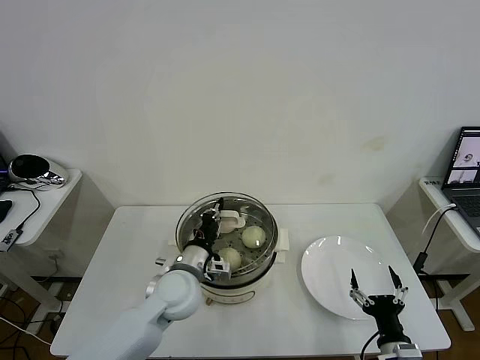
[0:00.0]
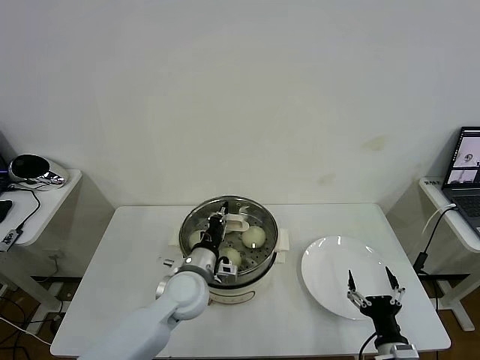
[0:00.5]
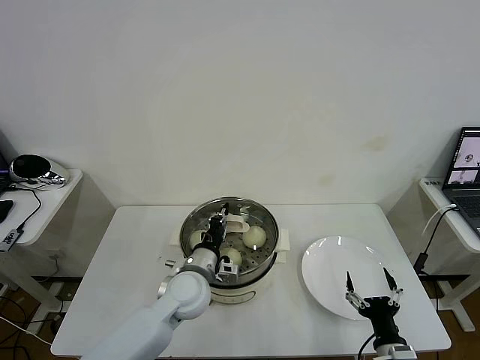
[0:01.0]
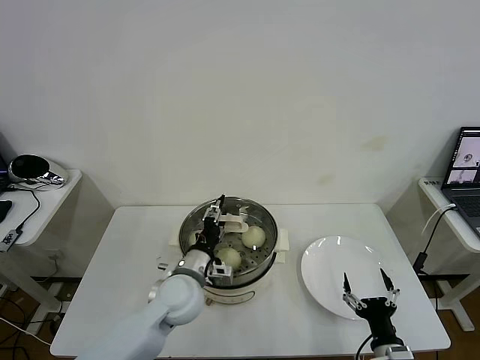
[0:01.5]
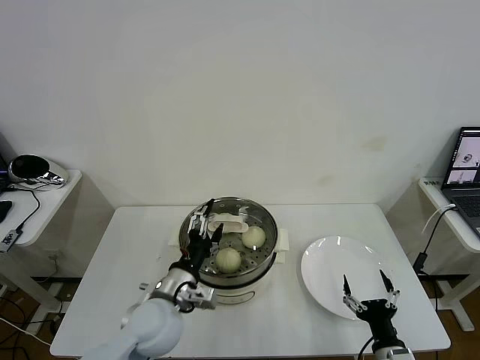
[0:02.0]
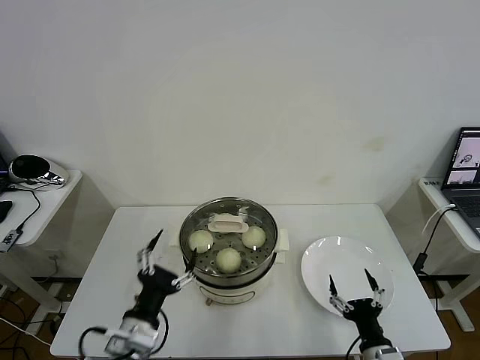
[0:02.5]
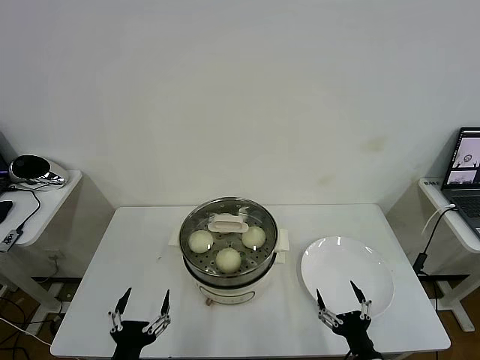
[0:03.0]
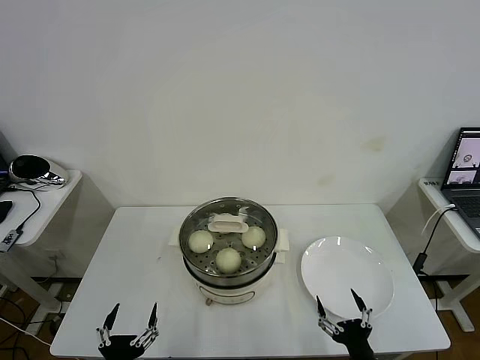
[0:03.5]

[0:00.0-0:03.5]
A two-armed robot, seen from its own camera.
Task of the whole recording: take steamed baozi put them in steamer then cover it.
0:00.0 to 0:02.0: The left gripper heads backward, covering approximately 5 cm, and opens up.
0:02.0 to 0:03.5: The left gripper shifts roughly 25 cm backward and to the left; the right gripper moves about 5 cm.

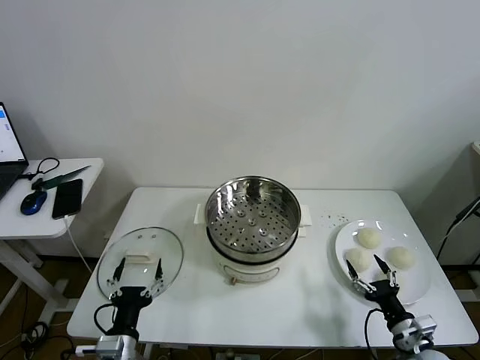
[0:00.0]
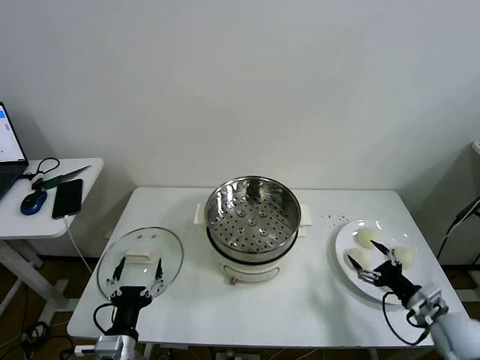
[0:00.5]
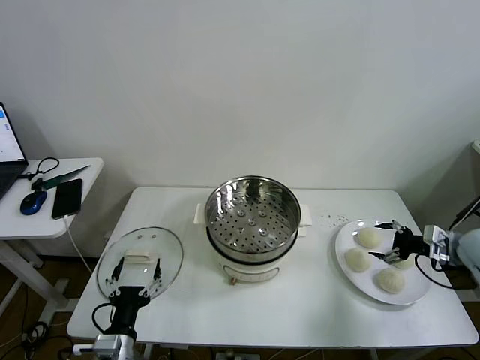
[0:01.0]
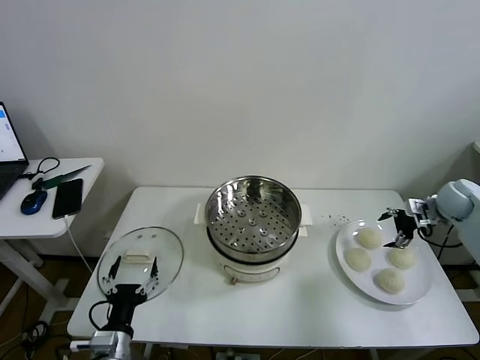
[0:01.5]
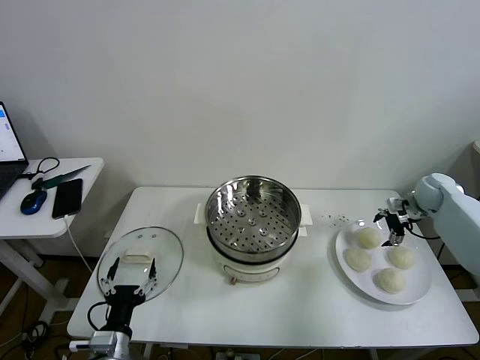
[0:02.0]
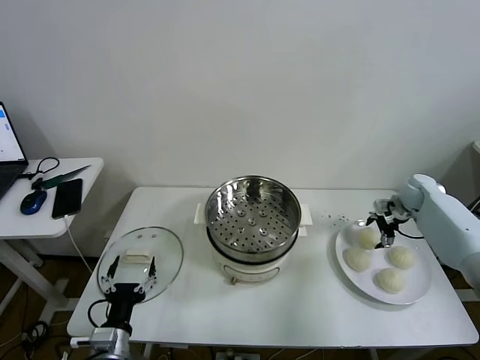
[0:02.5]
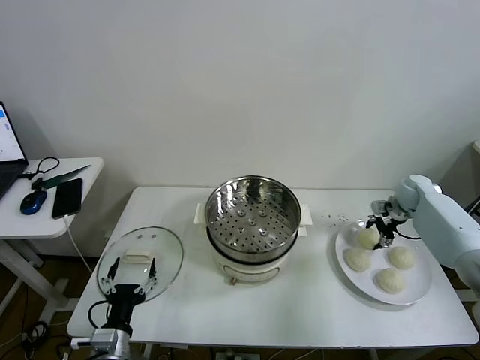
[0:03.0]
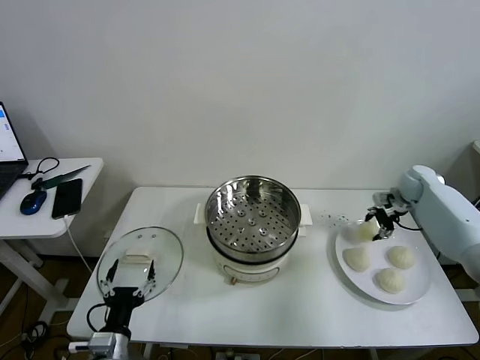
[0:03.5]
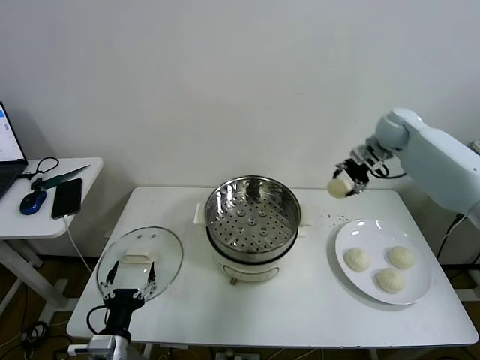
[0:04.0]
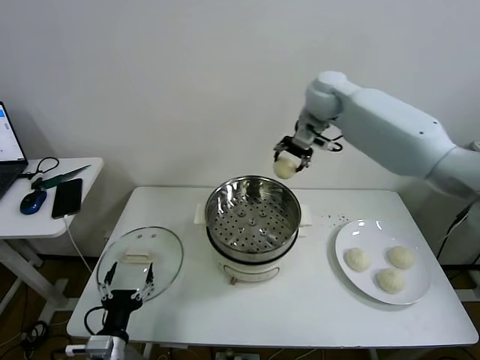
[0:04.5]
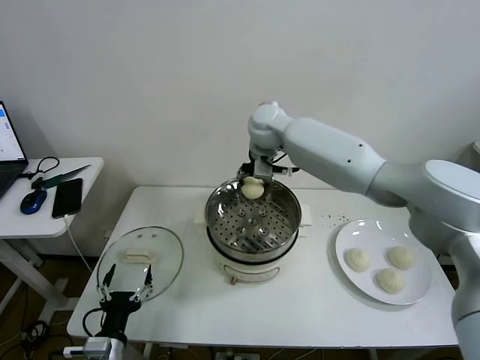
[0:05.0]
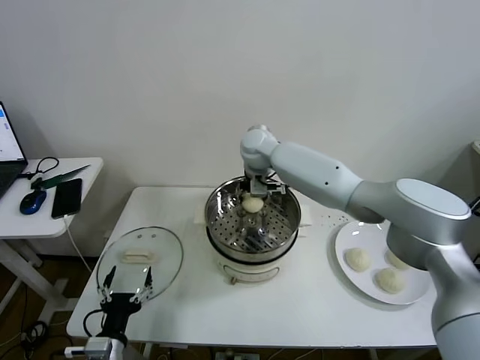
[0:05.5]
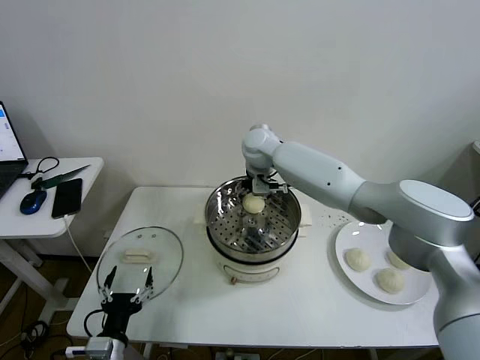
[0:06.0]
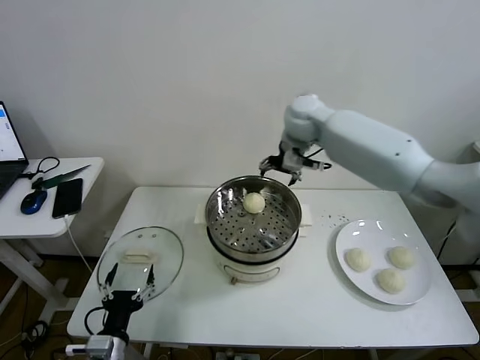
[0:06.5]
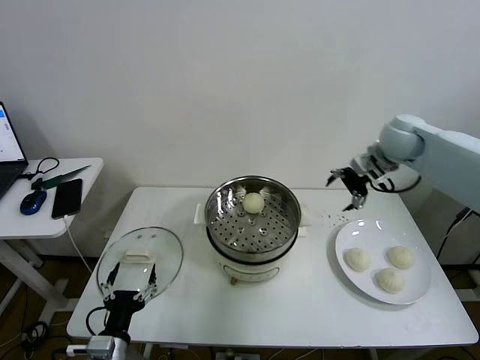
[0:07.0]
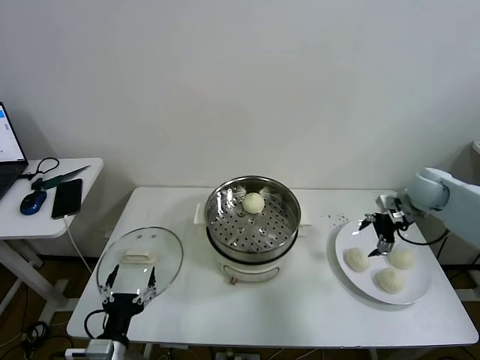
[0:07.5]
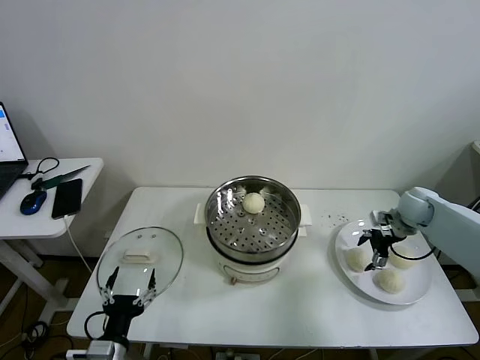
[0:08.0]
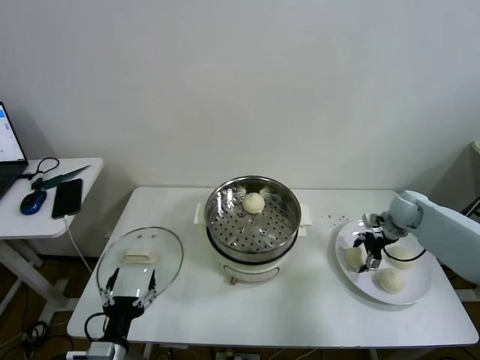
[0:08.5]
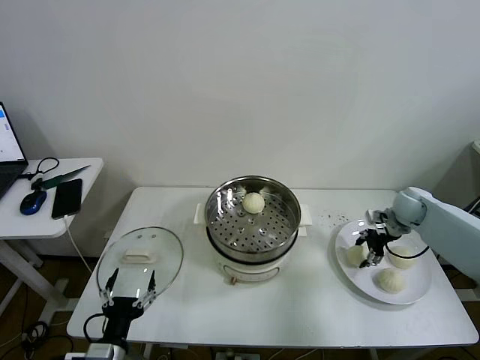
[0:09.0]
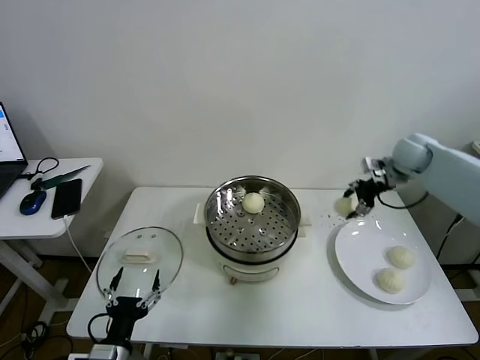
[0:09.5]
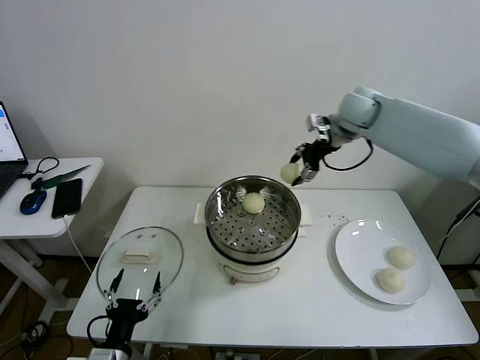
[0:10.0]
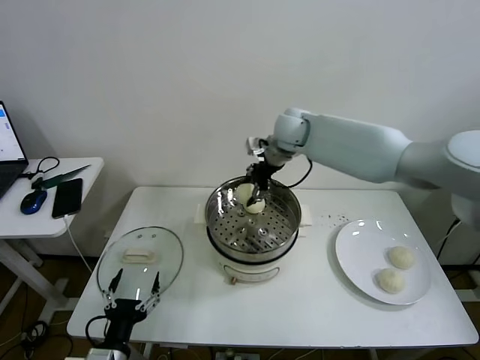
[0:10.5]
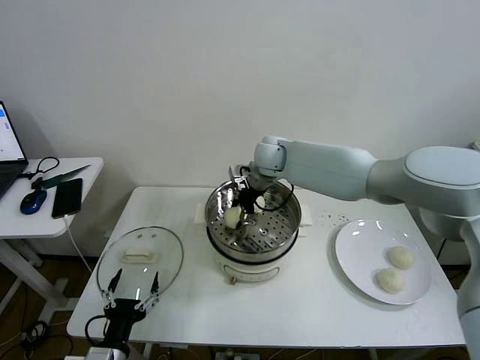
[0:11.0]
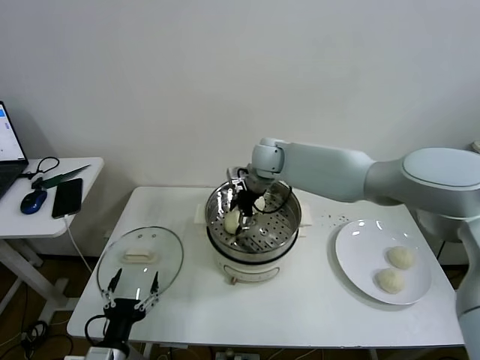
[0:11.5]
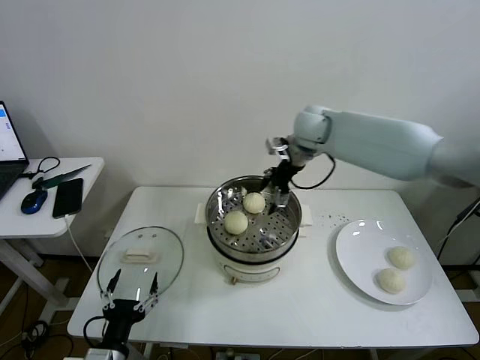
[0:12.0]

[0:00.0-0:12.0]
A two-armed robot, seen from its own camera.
Task of the whole recording: take steamed baozi put them in steamer then cover it.
Step, 0:00.0 to 0:03.0: Grasp the baozi in the plate with right gripper.
Step, 0:03.5 to 0:06.0: Place the baozi on the steamer with right gripper.
Step, 0:06.5 to 0:08.5: Grasp the baozi in the plate with right gripper.
Step, 0:09.0 to 0:11.0: Place the baozi on the steamer with right gripper.
0:02.0 to 0:04.0: The right gripper is displaced upward and to the left by about 25 cm, and closes.
0:04.0 to 0:06.0: The right gripper travels to the left by some 30 cm, and opens up.
0:06.0 to 0:08.0: The right gripper moves to the right, approximately 40 cm.
0:08.0 to 0:10.0: The right gripper goes roughly 35 cm upward, to the left and forward, and closes up.
0:10.0 to 0:12.0: The right gripper moves roughly 15 cm to the left and comes back, and opens its fingers.

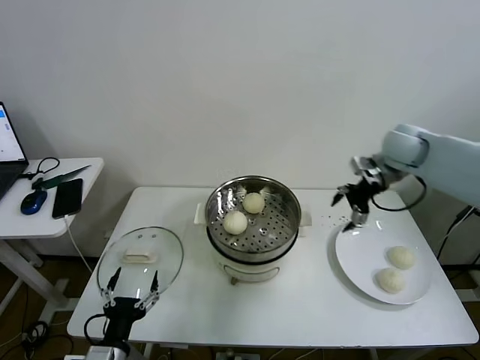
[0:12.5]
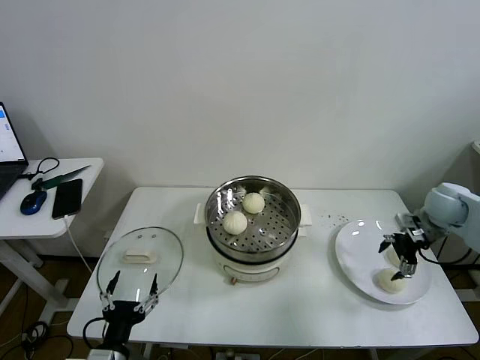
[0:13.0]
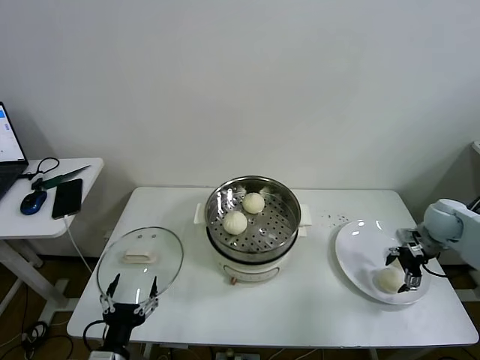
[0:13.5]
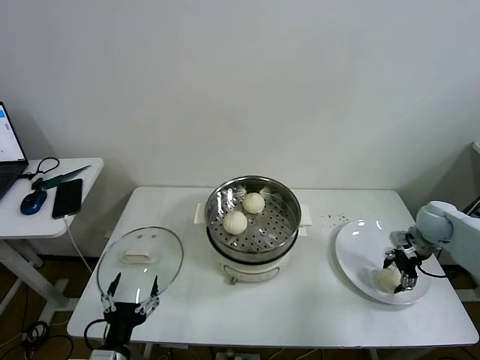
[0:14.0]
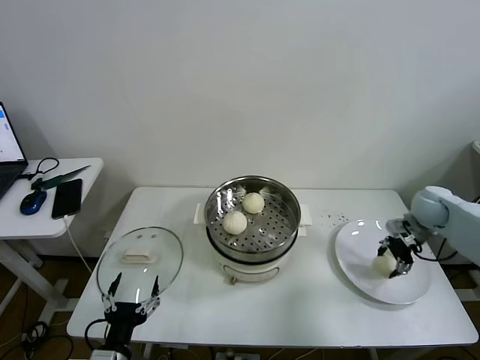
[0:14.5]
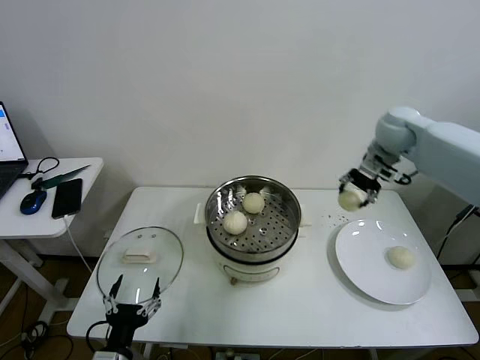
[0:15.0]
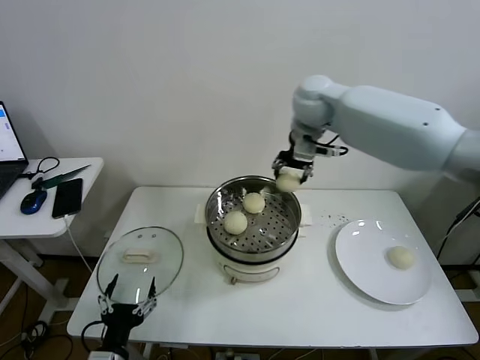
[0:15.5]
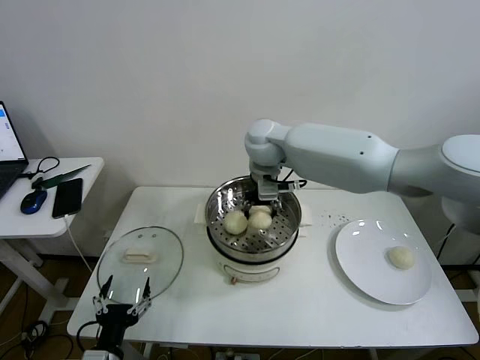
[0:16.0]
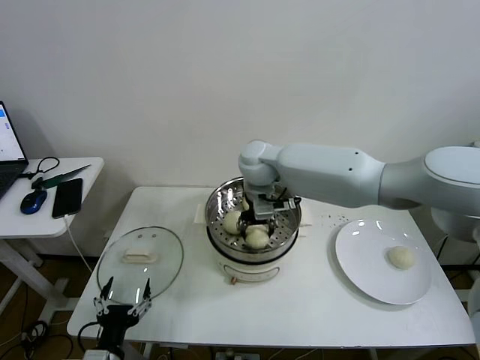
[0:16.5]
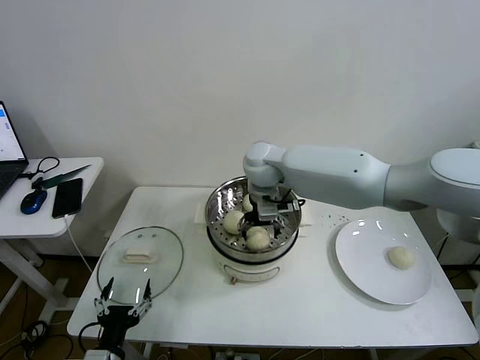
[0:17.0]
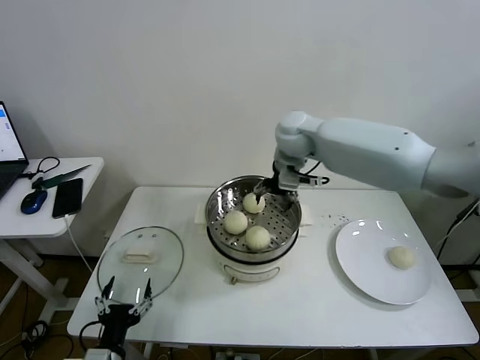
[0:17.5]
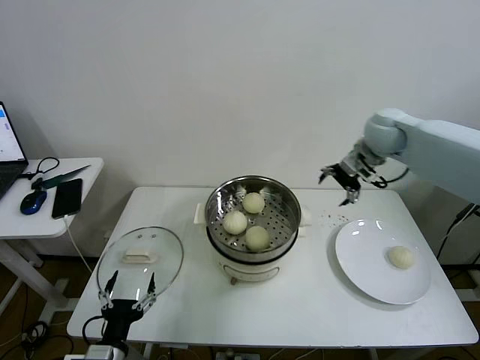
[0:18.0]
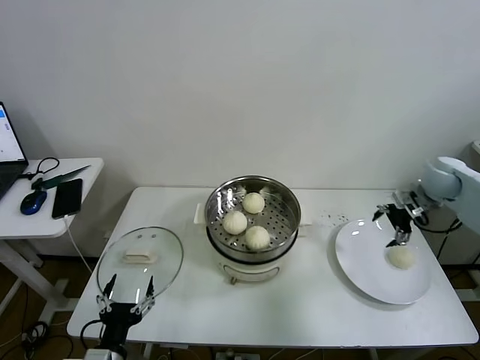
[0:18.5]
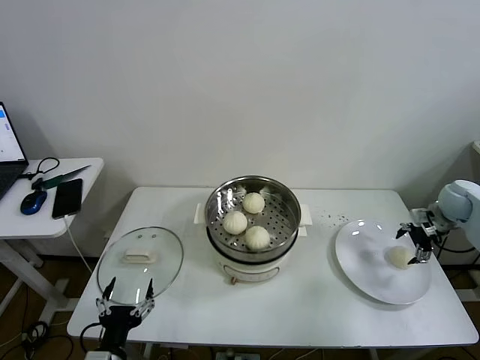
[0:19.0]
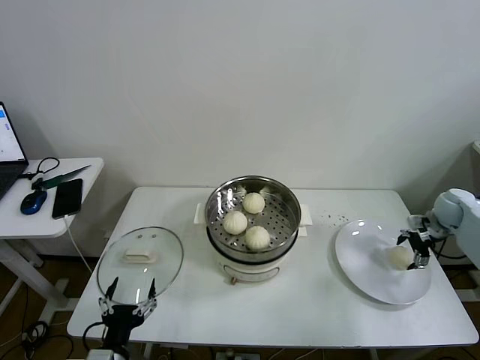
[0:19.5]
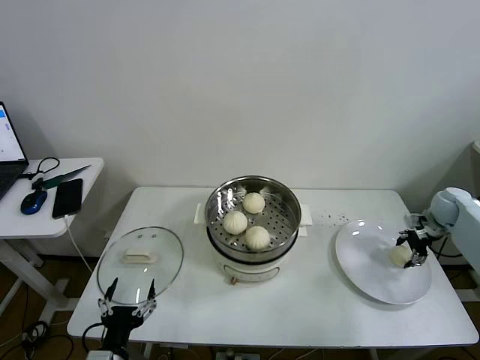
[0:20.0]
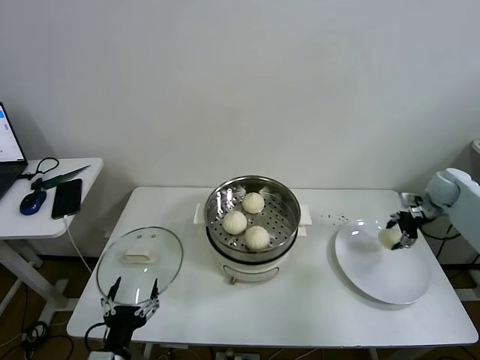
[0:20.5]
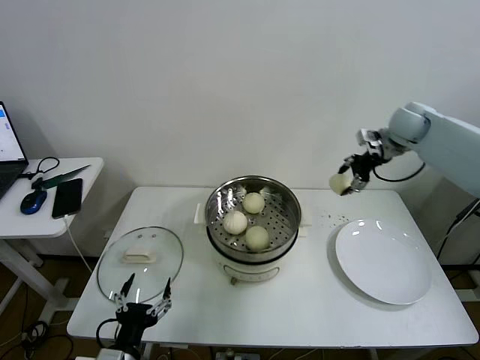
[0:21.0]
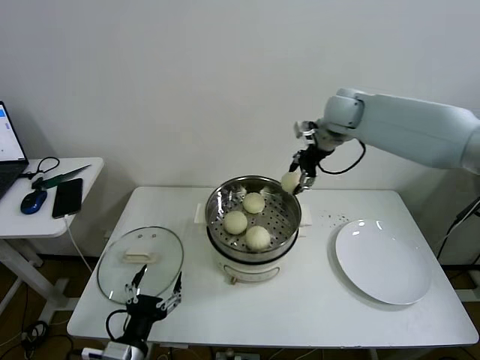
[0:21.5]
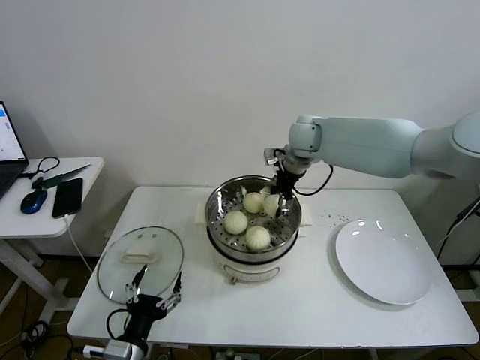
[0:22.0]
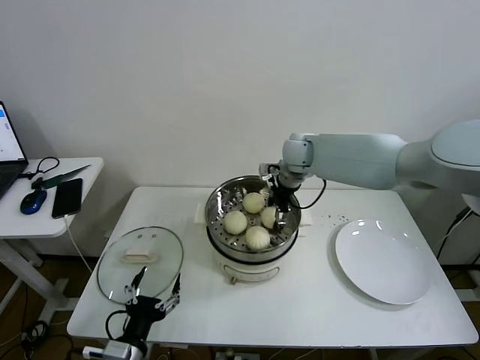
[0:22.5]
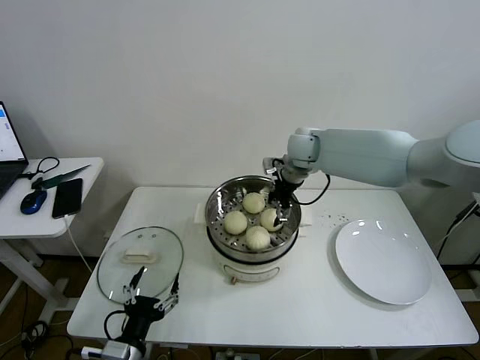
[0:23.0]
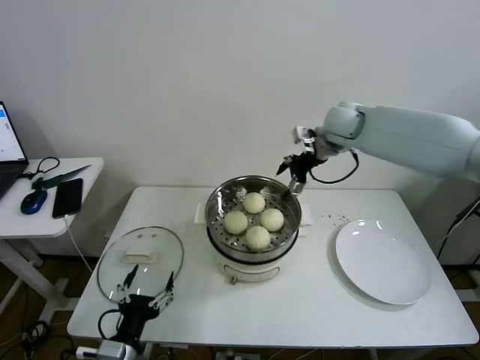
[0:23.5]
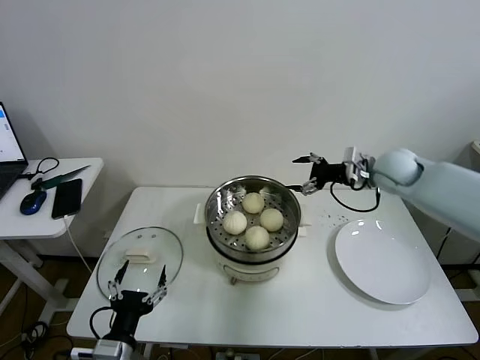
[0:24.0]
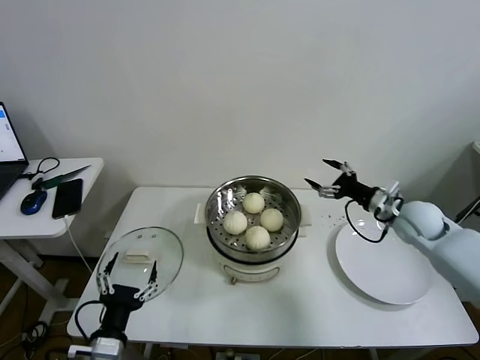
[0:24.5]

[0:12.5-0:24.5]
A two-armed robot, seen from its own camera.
Task of the whole recording: take steamed baozi put them in steamer then cover it.
Step, 0:12.5 to 0:14.0: Grasp the baozi in the plate with right gripper.
Step, 0:14.5 to 0:17.0: Place the baozi on the steamer with right gripper.
Step, 0:17.5 to 0:20.0: Grasp the baozi in the plate with right gripper.
Step, 0:20.5 to 0:22.5: Place the baozi on the steamer with right gripper.
0:12.5 to 0:14.5: The right gripper goes some 15 cm downward and to the right, and closes up.
0:14.5 to 0:16.5: The right gripper travels to the left by roughly 40 cm.
0:16.5 to 0:18.5: The right gripper shifts some 40 cm to the right, and opens up.
0:18.5 to 0:20.5: The right gripper closes up.
0:20.5 to 0:22.5: The right gripper shifts roughly 40 cm to the left, and opens up.
0:22.5 to 0:24.5: The right gripper heads to the right and backward, covering roughly 30 cm, and opens up.
